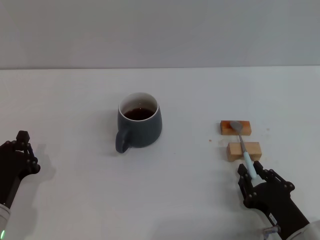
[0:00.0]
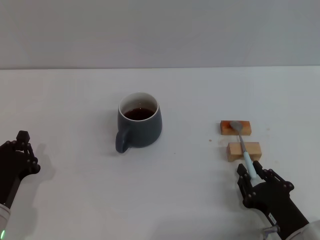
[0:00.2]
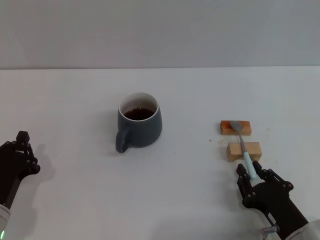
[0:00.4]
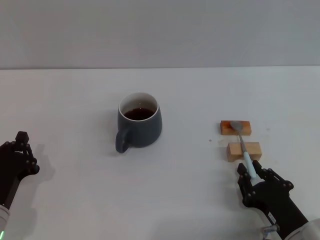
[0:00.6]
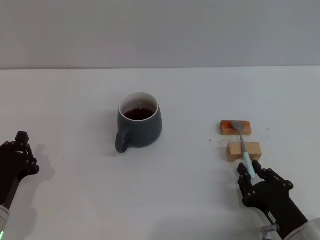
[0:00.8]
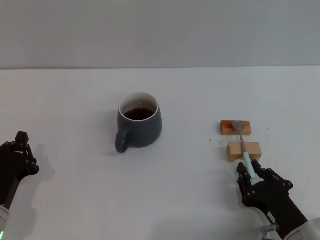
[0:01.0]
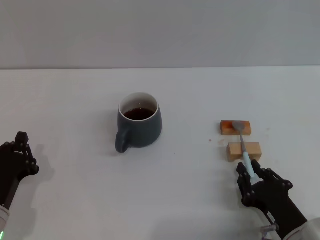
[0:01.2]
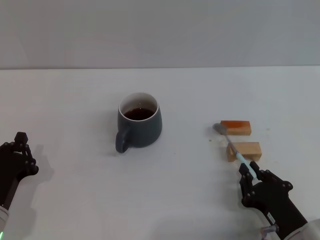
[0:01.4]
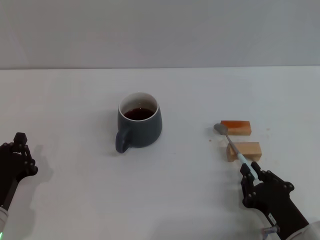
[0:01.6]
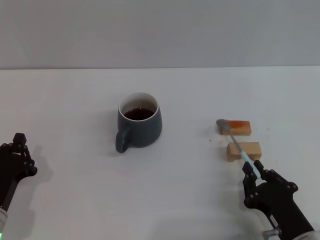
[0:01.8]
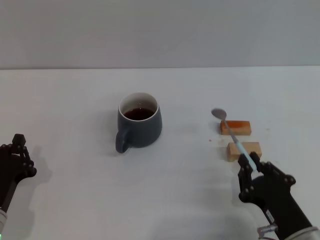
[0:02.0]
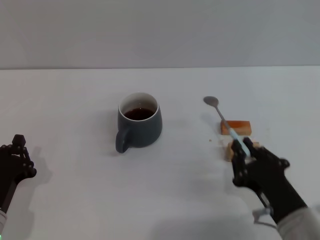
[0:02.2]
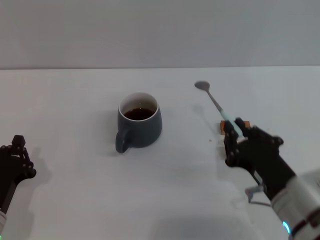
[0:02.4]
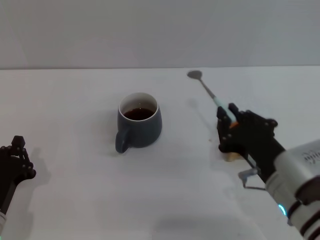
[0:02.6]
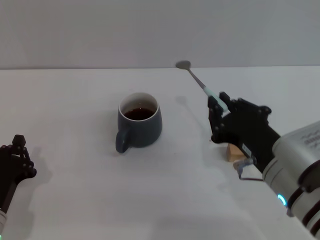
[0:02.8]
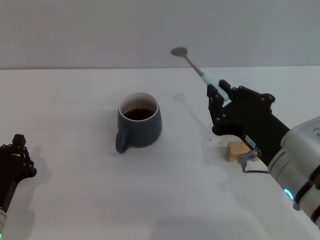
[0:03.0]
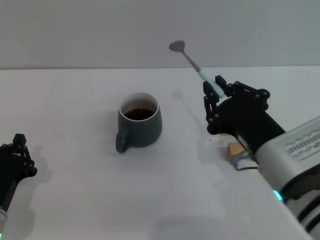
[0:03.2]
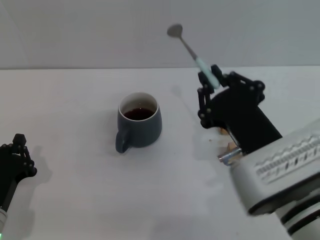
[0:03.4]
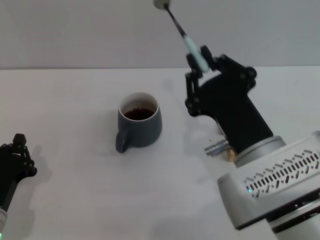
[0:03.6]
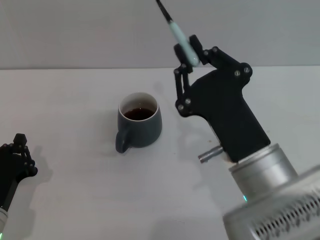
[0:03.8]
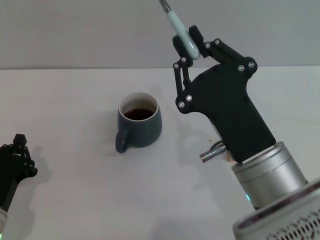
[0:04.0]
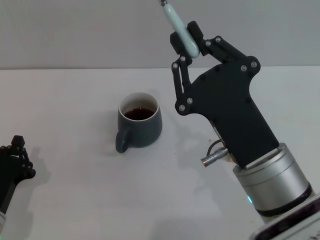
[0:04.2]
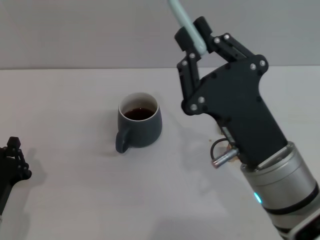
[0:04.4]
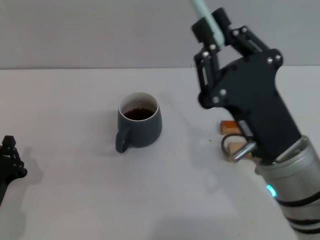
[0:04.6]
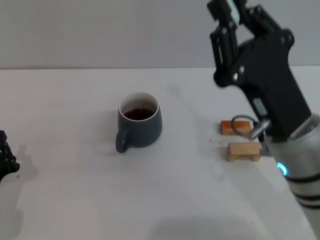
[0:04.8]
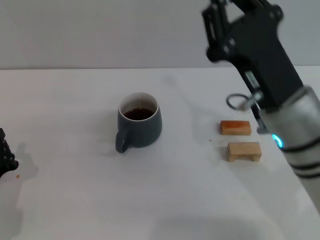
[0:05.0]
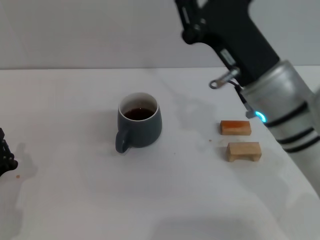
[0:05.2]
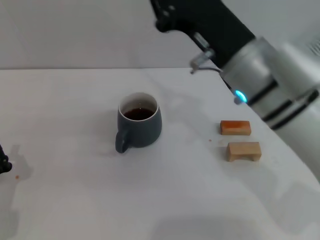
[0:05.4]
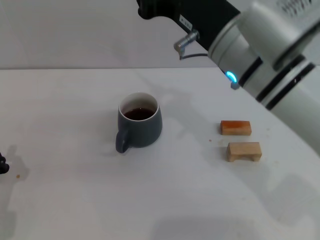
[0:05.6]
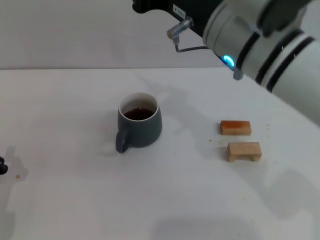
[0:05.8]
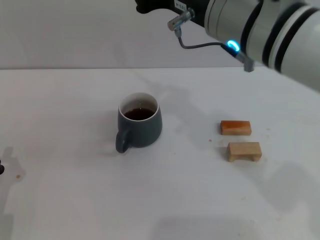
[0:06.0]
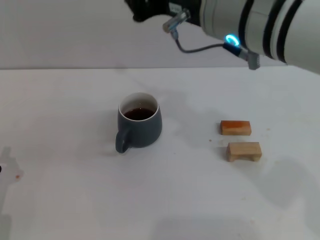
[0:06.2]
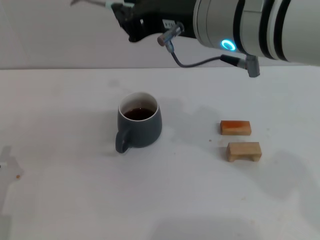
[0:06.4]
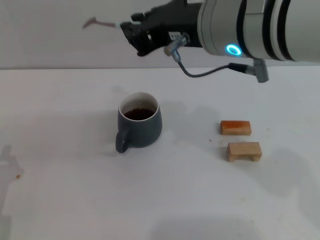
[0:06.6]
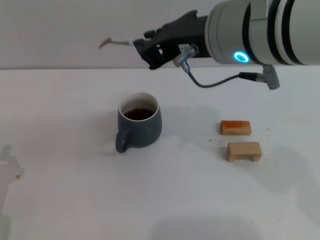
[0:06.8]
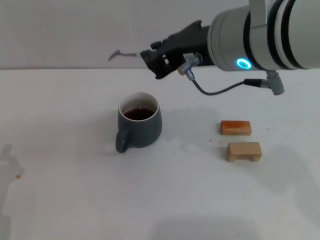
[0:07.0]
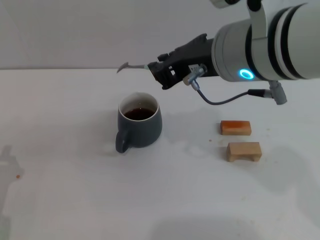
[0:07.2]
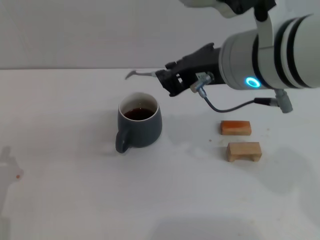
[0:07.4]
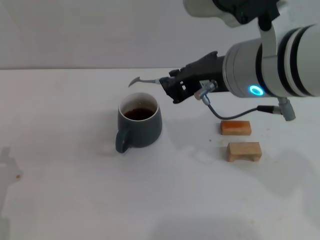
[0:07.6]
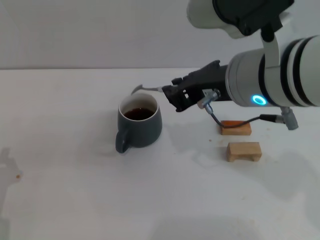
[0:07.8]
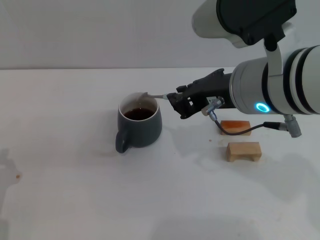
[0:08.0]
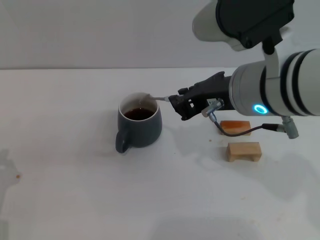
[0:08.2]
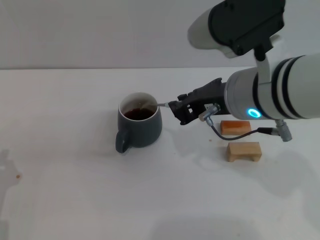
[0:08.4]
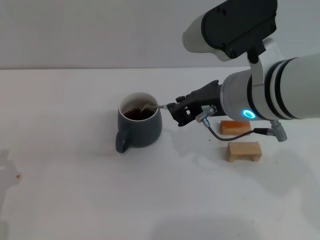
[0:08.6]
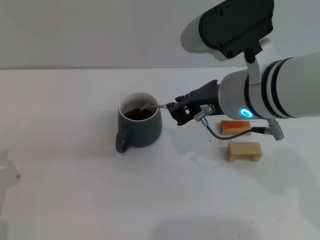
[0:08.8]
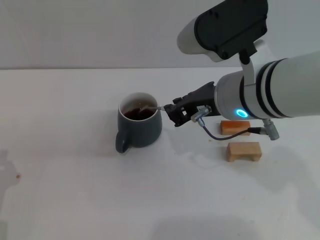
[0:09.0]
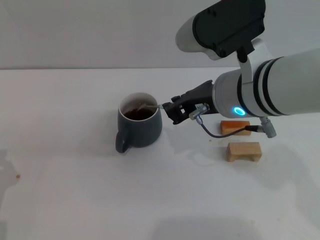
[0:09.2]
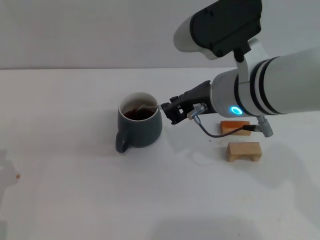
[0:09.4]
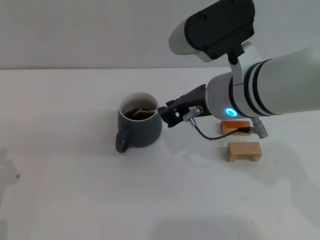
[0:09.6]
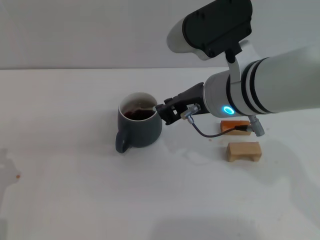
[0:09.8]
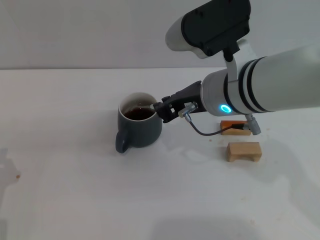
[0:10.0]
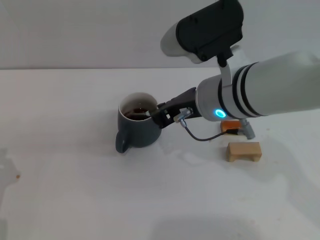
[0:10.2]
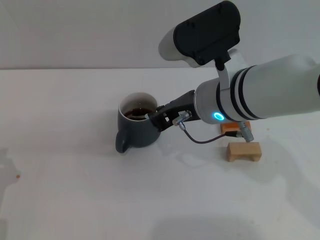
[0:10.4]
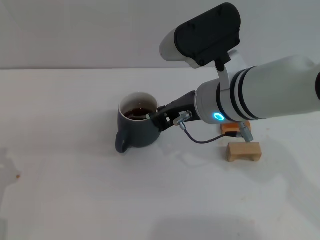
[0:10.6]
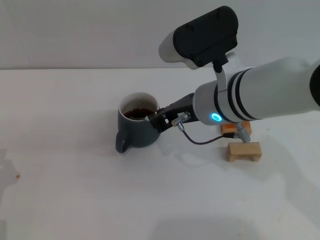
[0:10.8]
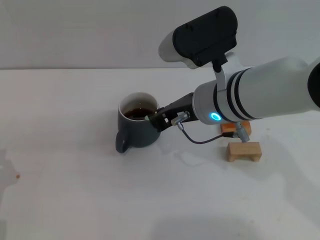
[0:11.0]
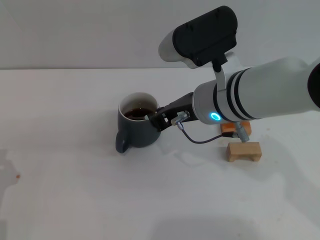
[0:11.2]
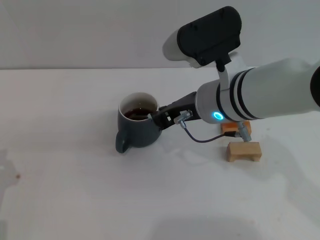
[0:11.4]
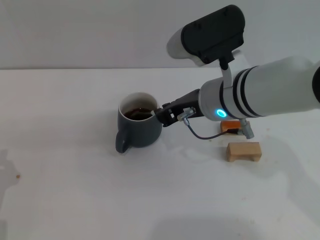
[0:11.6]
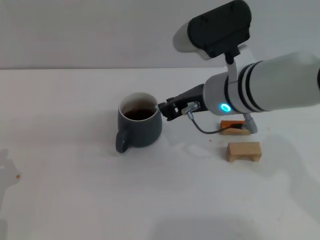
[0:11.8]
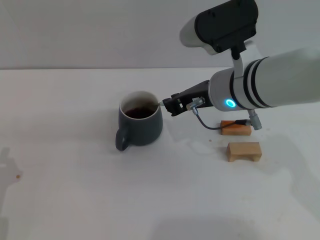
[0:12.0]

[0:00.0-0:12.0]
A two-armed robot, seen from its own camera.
Task of the whole recording: Move the grey cup to the center, lift the blue spoon, stir it three times in the cup, and put the spoon into the cup.
Step, 0:00.0 to 0:02.2: Pick up the spoon with the right gripper.
0:00.0 to 0:01.6: The two grippers keep their place.
0:01.6 to 0:03.0: The right gripper moves upward, some 15 cm.
0:04.4 to 0:06.0: The right gripper is displaced upward and forward by approximately 20 cm.
0:07.6 to 0:09.0: The right gripper ends up some 5 cm from where it was.
0:09.0 to 0:12.0: The grippers make only small movements.

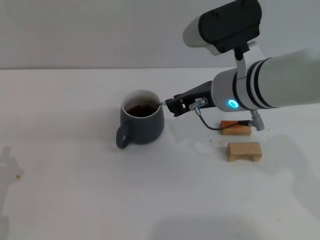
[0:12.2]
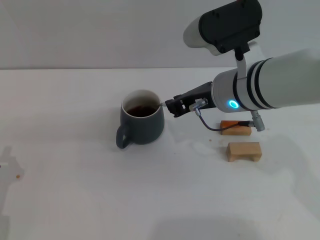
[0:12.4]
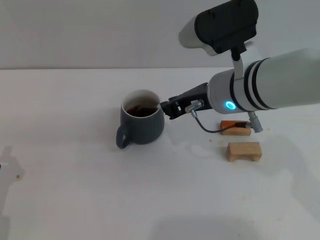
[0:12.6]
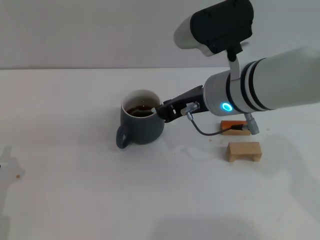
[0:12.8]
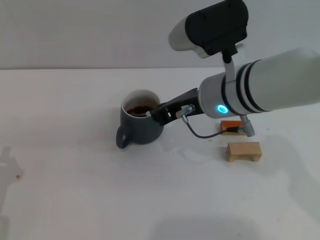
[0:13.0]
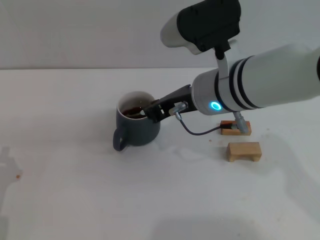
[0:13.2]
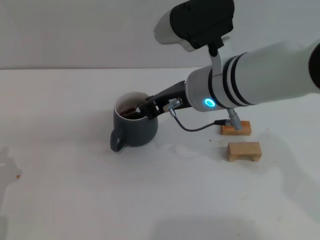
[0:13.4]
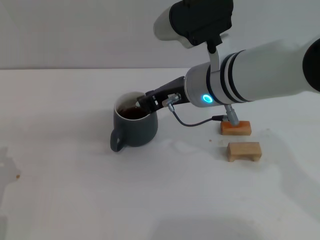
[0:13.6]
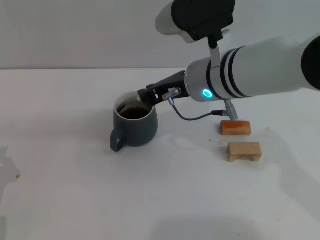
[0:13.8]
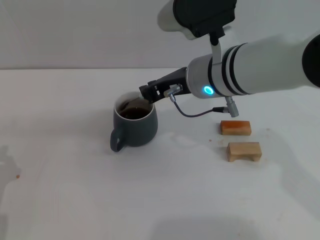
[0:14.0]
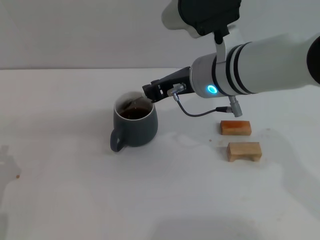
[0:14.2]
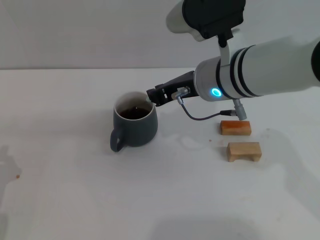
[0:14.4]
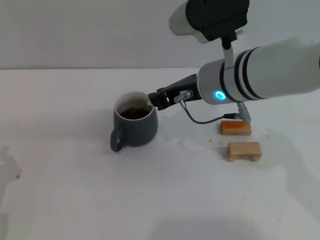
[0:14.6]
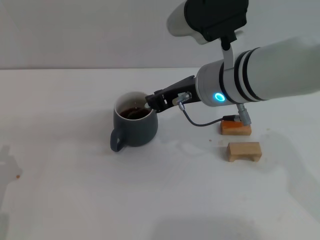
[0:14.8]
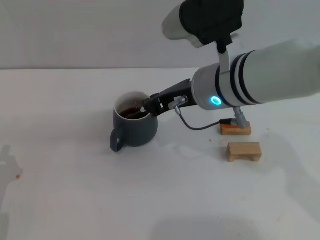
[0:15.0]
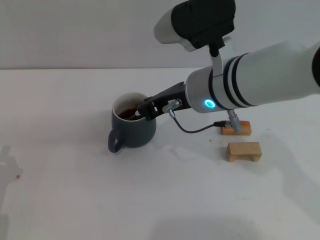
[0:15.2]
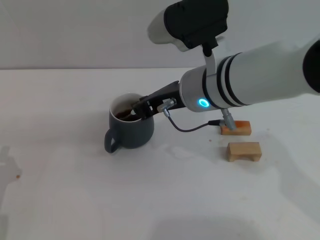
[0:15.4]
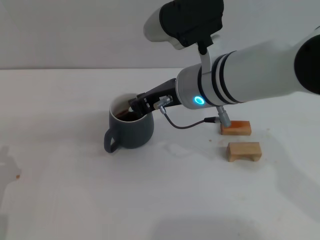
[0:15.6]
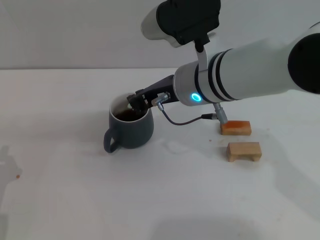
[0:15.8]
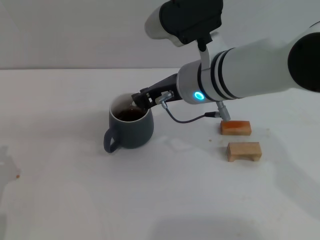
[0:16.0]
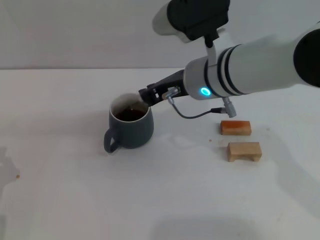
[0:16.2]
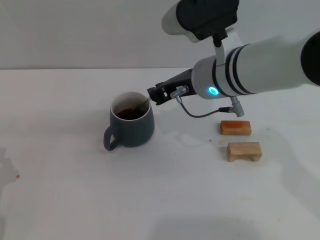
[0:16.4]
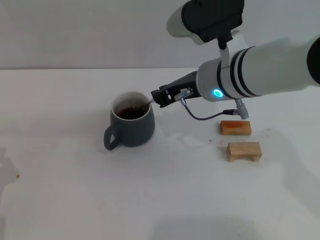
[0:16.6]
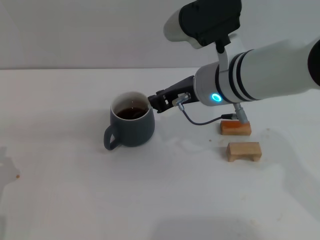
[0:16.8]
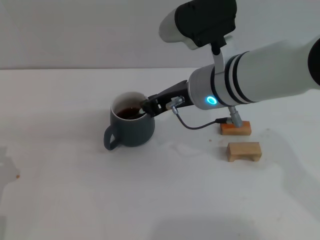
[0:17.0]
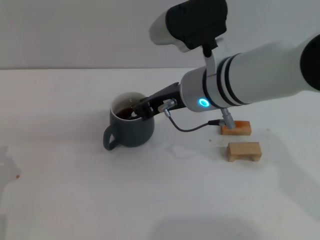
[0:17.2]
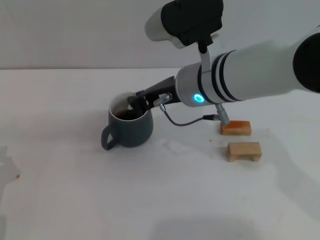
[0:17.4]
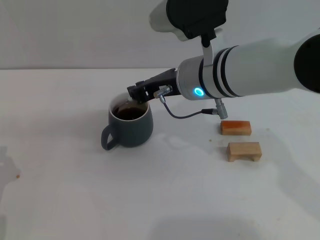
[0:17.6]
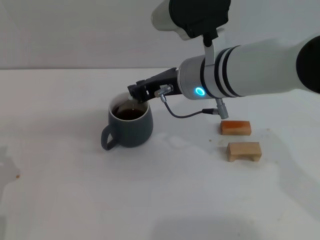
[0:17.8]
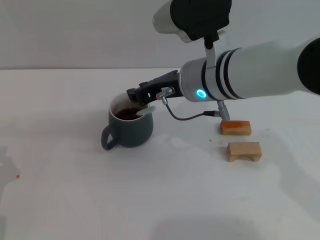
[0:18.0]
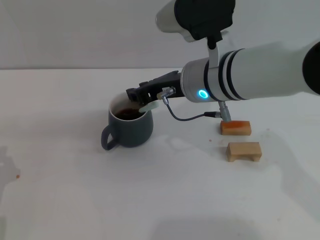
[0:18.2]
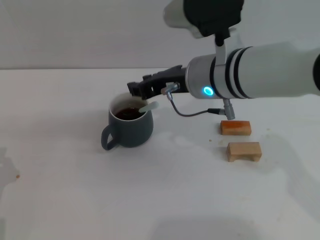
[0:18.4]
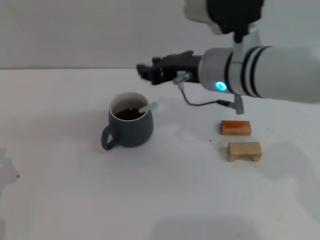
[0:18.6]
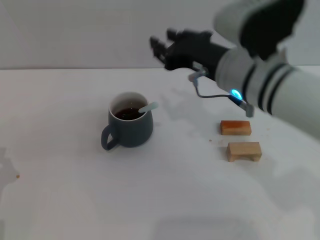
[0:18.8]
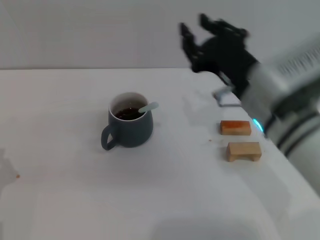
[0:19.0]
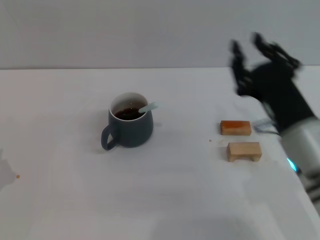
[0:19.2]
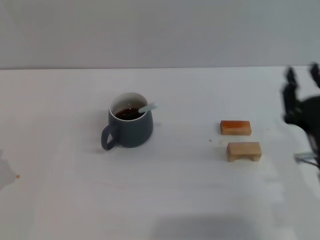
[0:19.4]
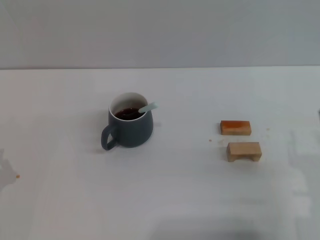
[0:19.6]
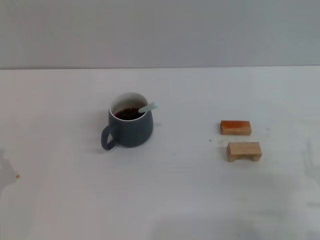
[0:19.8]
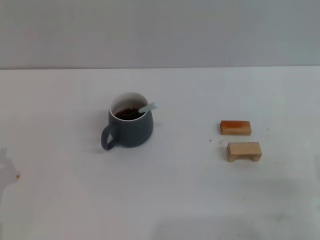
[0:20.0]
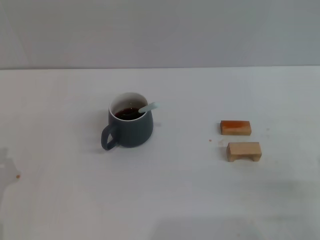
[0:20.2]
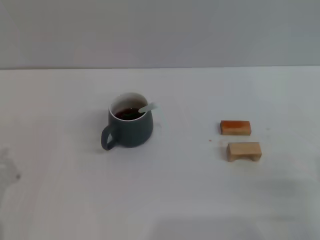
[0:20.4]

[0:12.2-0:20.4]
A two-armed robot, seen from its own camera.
Task of the whole recording: Move the grey cup to the center, lift the blue spoon, stir it three times in the cup, and put the spoon into the cup.
Step, 0:12.2 to 0:18.6: Stir the coffee in the cup with the right gripper.
0:12.2 to 0:17.2: There are only small adjustments of the grippers.
0:17.2 to 0:18.8: The right gripper opens.
0:18.8 to 0:20.4: The right gripper goes about 30 cm to the right, backward and downward, and opens its fingers.
